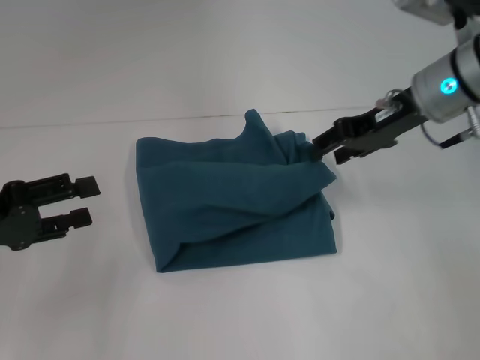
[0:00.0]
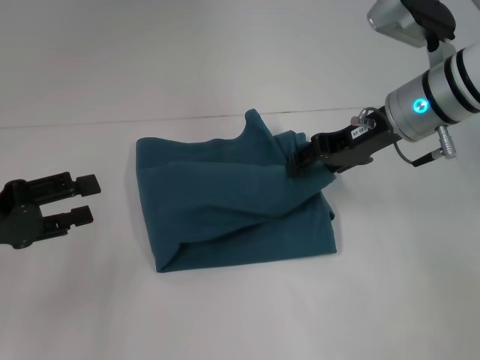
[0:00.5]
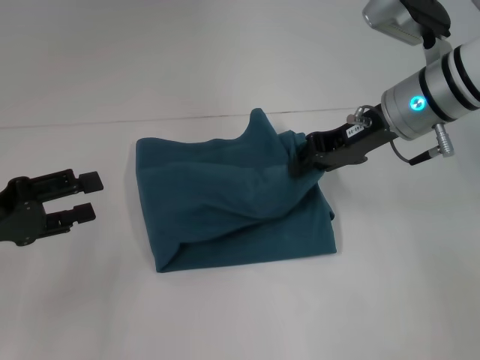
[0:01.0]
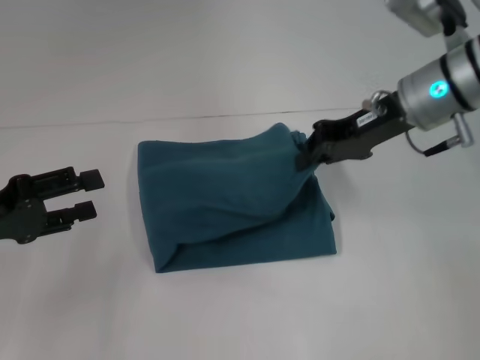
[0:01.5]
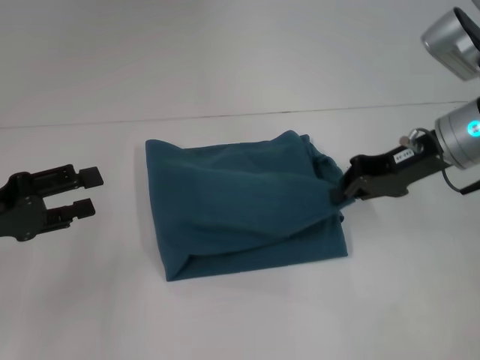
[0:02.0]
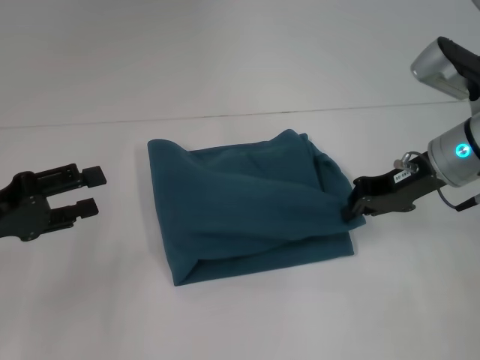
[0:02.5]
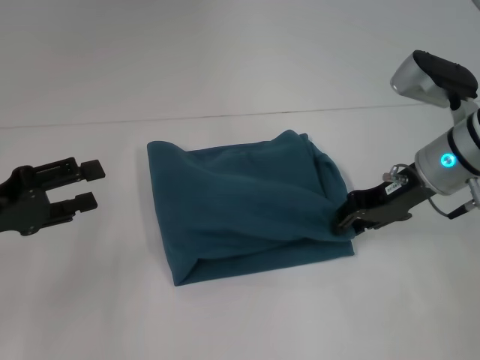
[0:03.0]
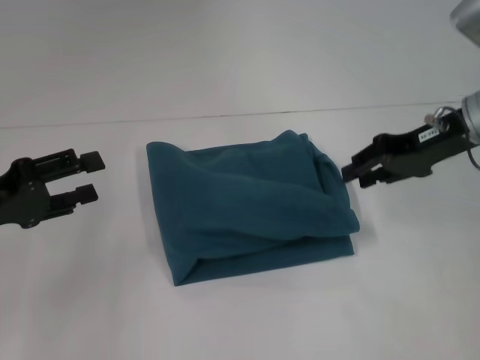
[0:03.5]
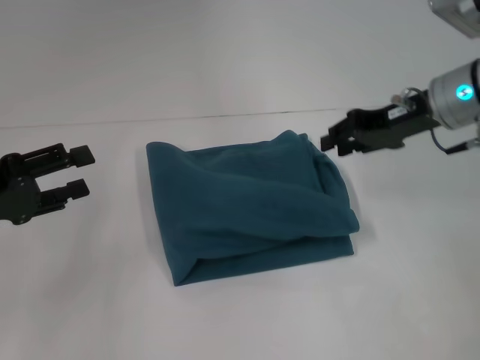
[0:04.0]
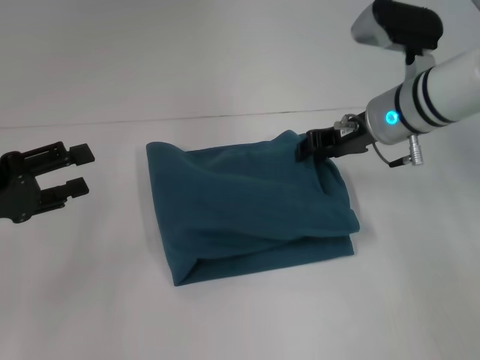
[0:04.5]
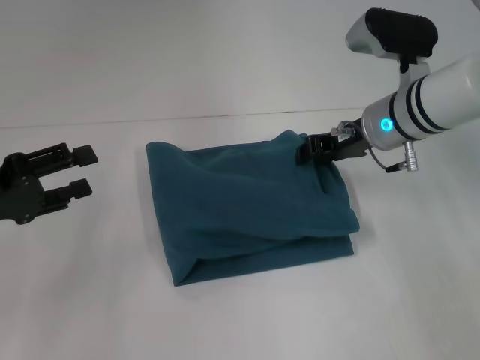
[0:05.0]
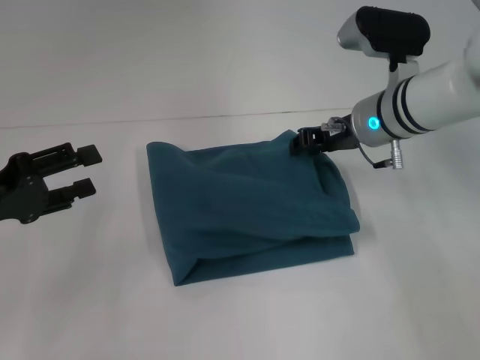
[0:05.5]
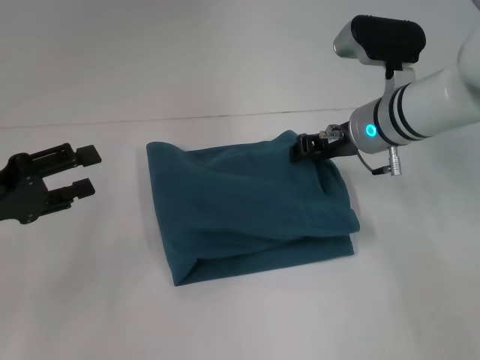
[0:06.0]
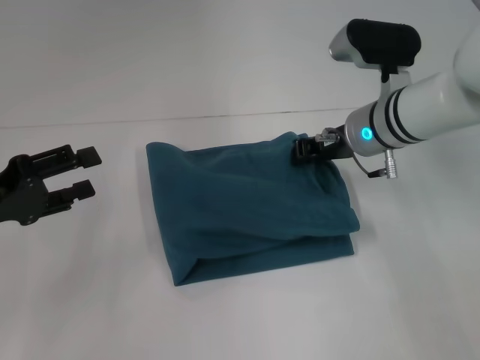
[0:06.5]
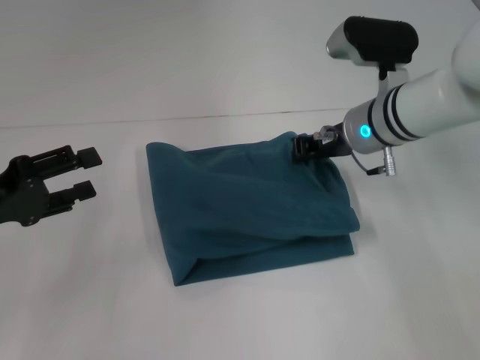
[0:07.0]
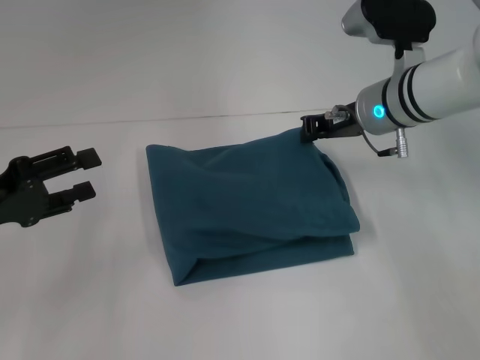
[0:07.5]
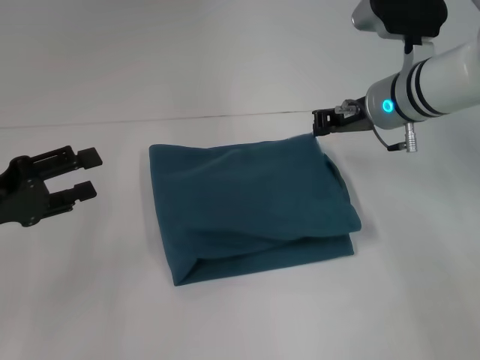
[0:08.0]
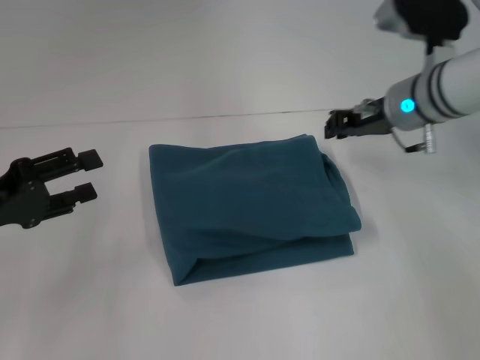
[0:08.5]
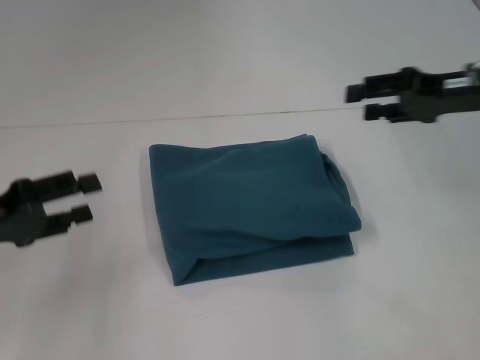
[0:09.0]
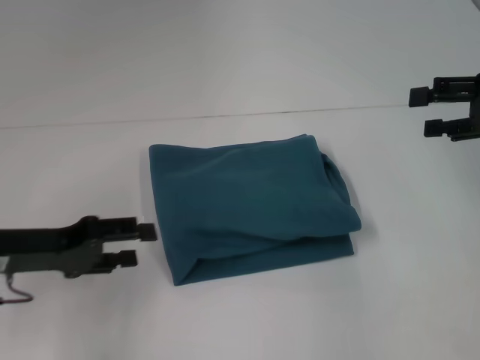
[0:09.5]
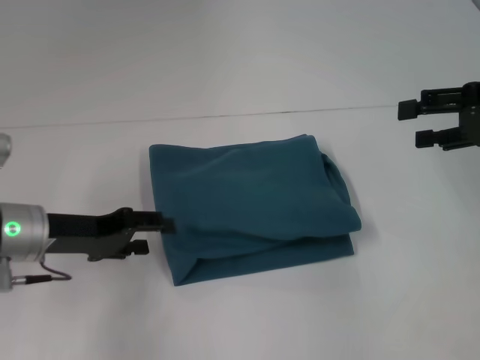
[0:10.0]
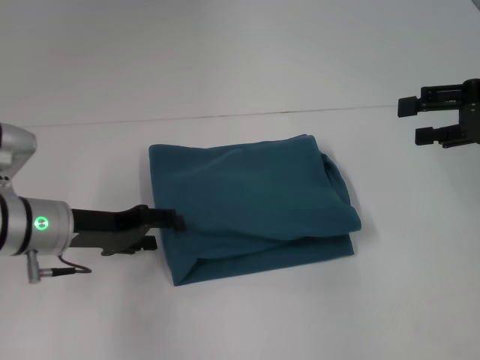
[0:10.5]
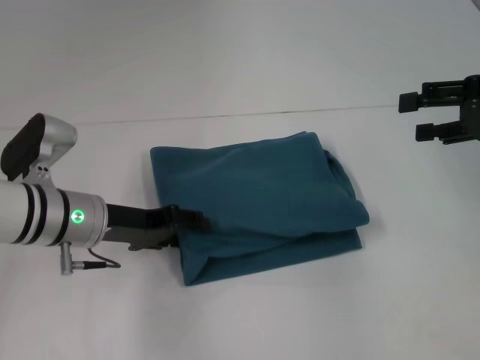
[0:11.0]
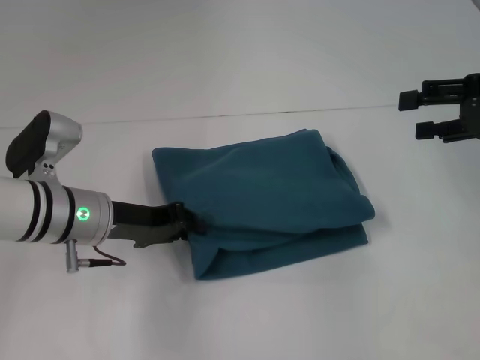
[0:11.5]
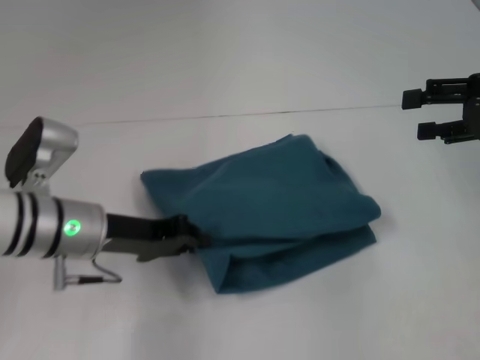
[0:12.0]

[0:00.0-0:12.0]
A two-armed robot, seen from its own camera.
0.0 to 2.0 s: The right gripper shifts by about 5 cm, and closes up.
2.0 to 4.0 s: The right gripper opens up.
4.0 to 6.0 s: The right gripper heads to the left and downward, covering approximately 10 cm.
6.0 to 8.0 s: The grippers move only a little.
8.0 to 10.0 s: The left gripper shifts about 5 cm to the right. Meanwhile the right gripper shifts approximately 20 cm to the right and backward, and opens.
10.0 to 12.0 s: The left gripper is displaced to the right by some 5 cm, and closes its fingers.

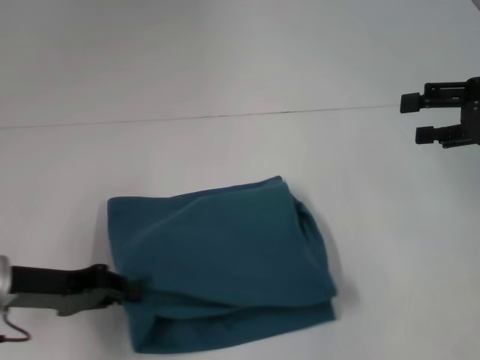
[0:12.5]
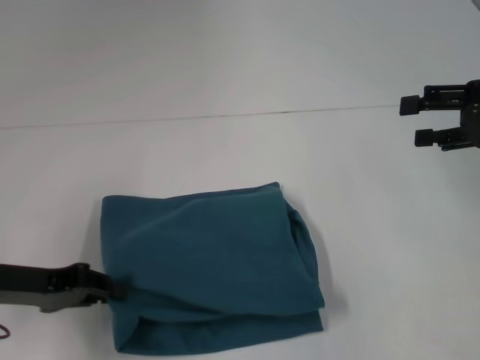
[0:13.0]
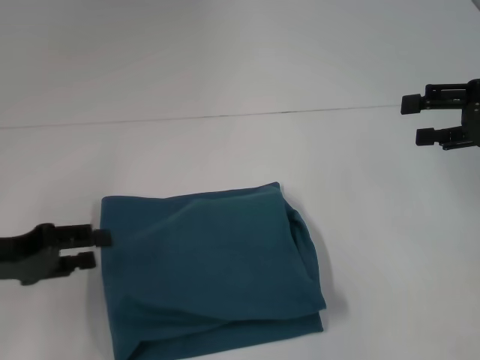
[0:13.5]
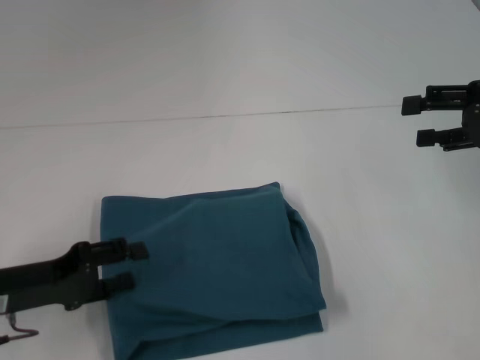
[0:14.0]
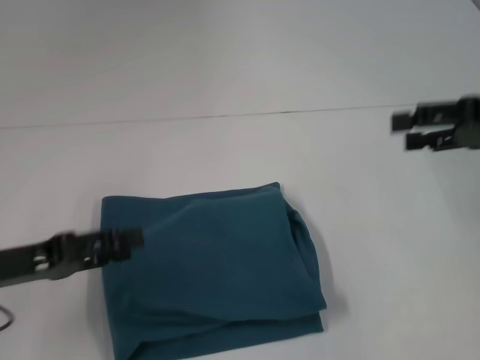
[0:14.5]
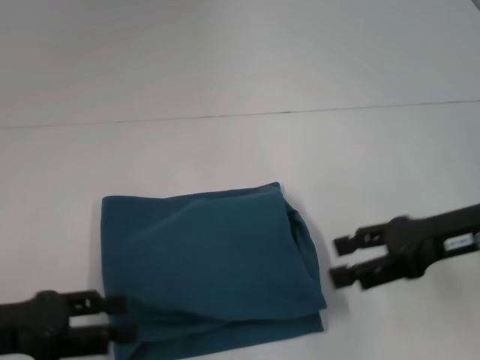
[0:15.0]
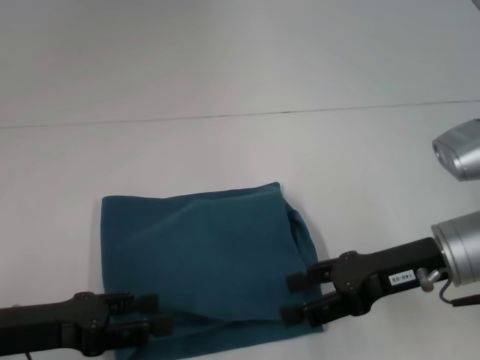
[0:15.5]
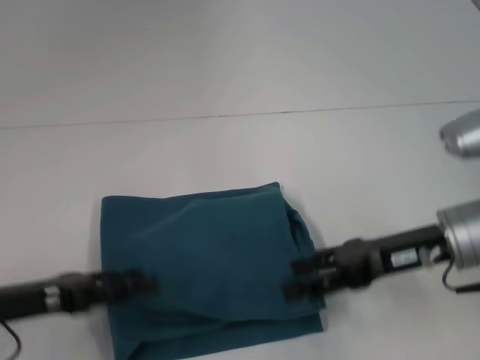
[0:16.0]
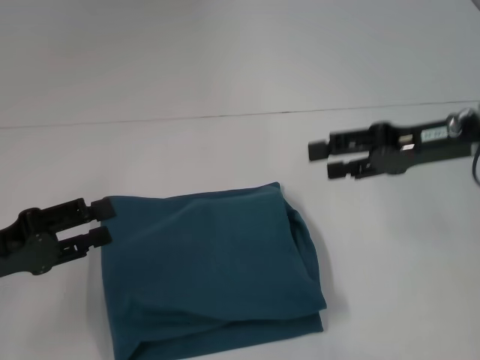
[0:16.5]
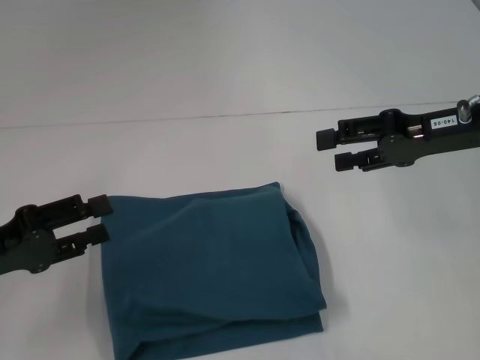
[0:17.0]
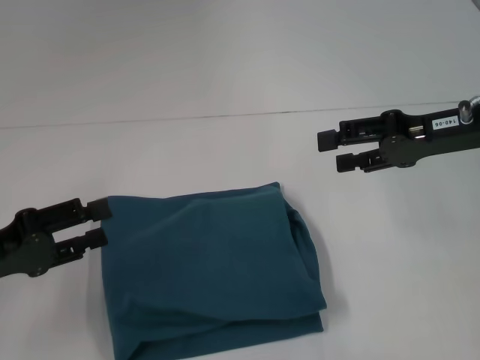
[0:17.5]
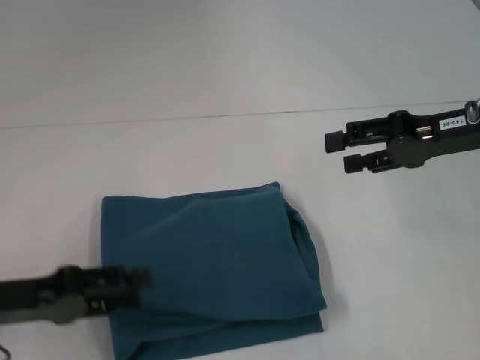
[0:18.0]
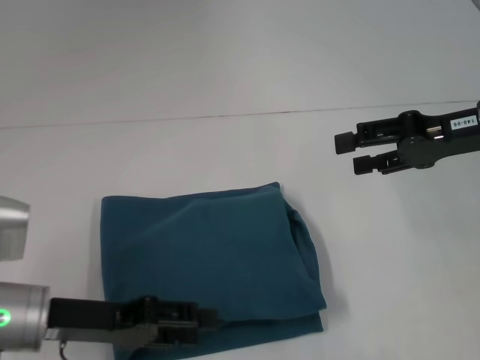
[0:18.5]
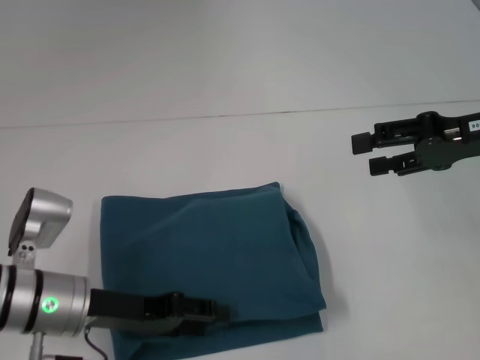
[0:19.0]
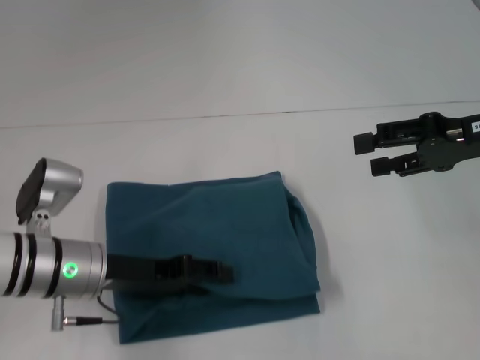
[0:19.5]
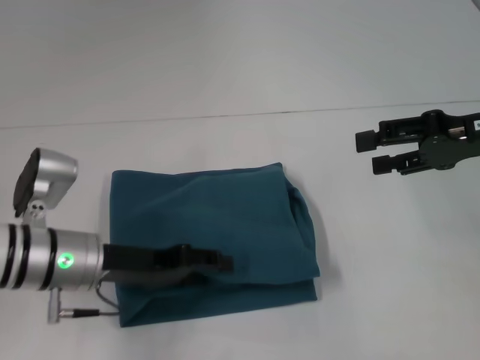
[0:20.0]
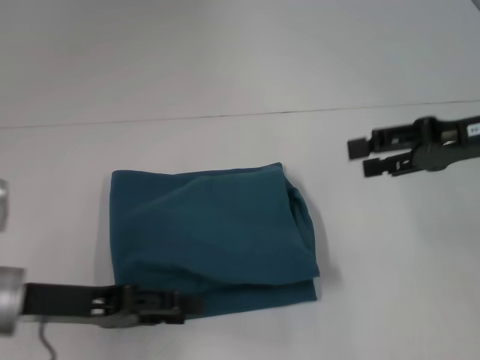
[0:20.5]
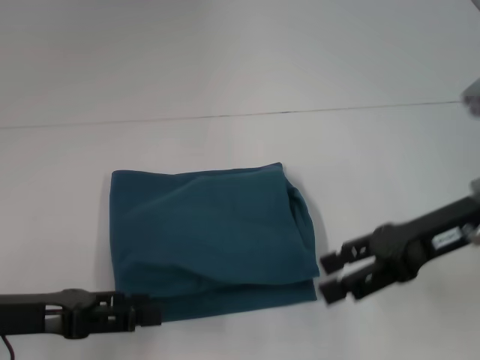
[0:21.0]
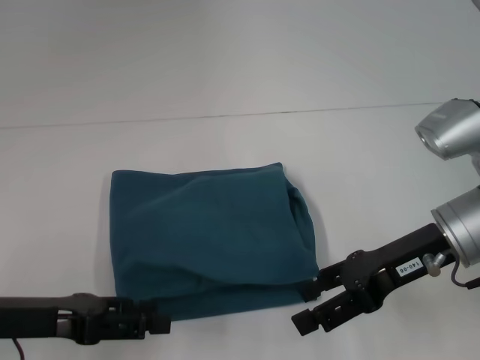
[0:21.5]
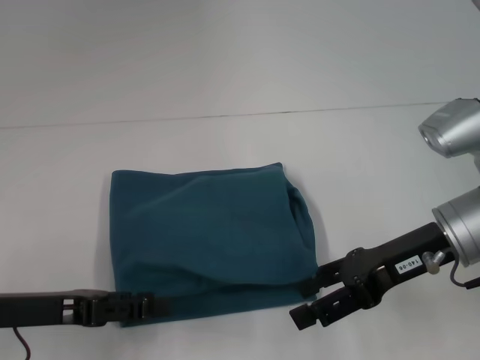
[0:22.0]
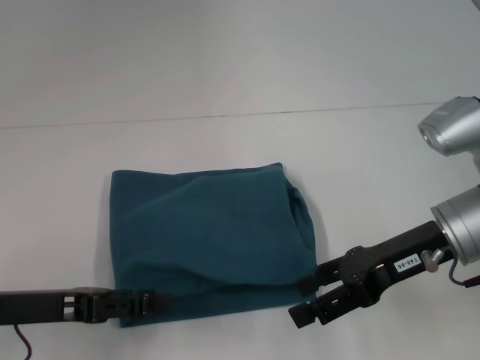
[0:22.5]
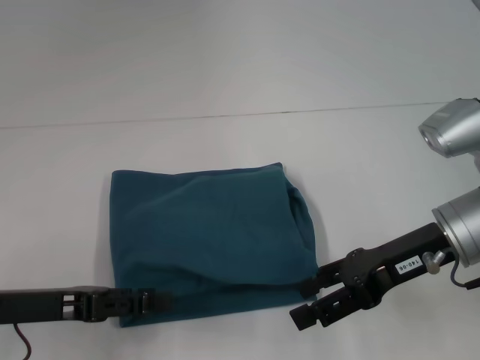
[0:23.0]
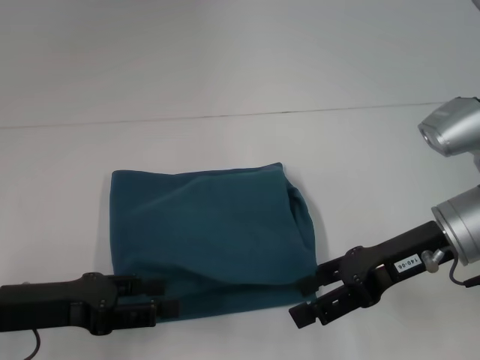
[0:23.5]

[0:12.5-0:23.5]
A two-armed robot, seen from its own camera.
12.5 to 14.5 s: The left gripper opens.
14.5 to 16.0 s: The right gripper is displaced to the left and downward by some 15 cm.
16.0 to 18.0 s: The right gripper travels upward, forward and to the right by roughly 10 cm.
18.0 to 20.0 s: The left gripper travels to the right and forward by approximately 10 cm.
20.0 to 21.5 s: The right gripper heads to the left and downward, covering some 10 cm; the left gripper shifts roughly 10 cm to the left and backward.
21.5 to 23.5 s: The grippers stay close to where they were, moving slightly.

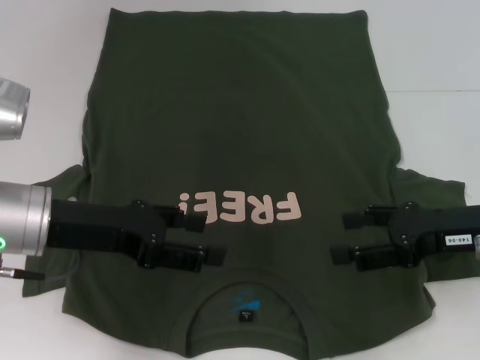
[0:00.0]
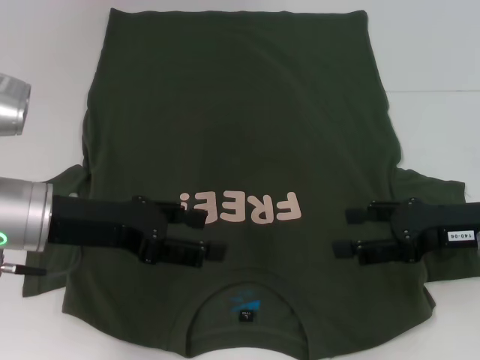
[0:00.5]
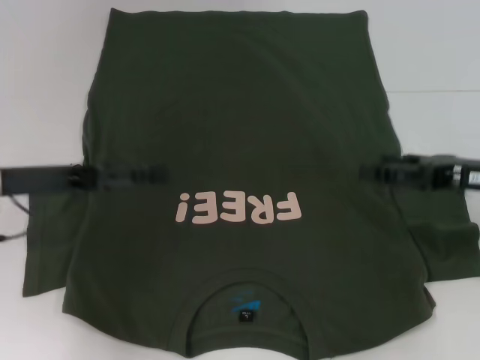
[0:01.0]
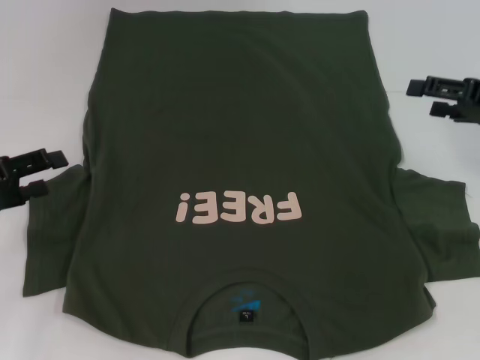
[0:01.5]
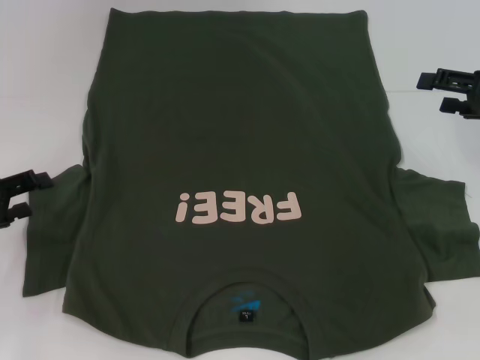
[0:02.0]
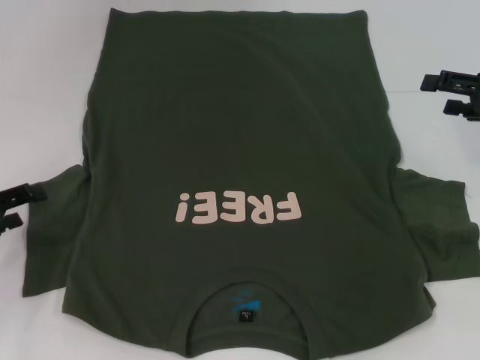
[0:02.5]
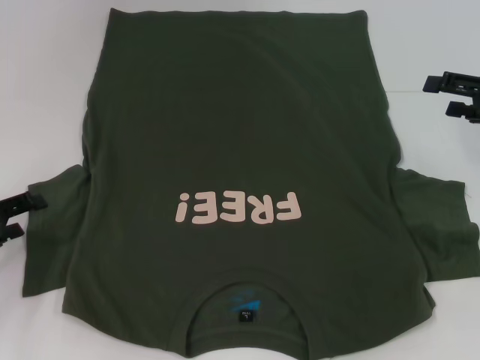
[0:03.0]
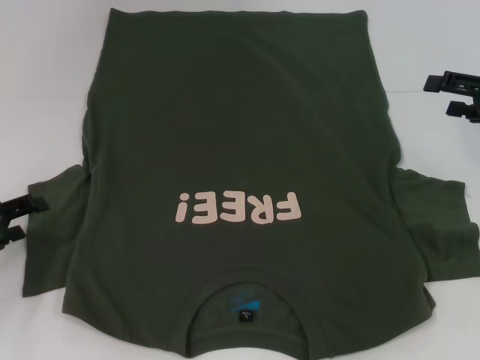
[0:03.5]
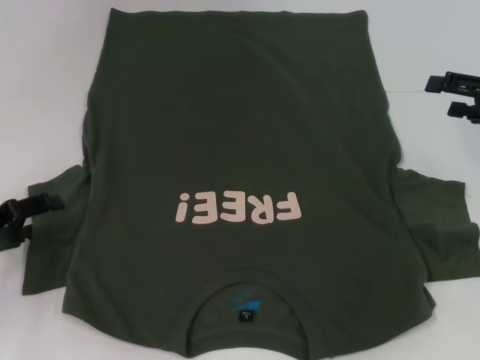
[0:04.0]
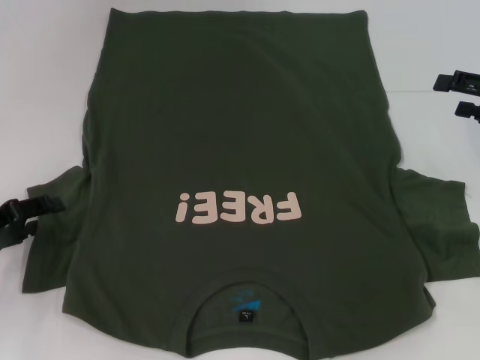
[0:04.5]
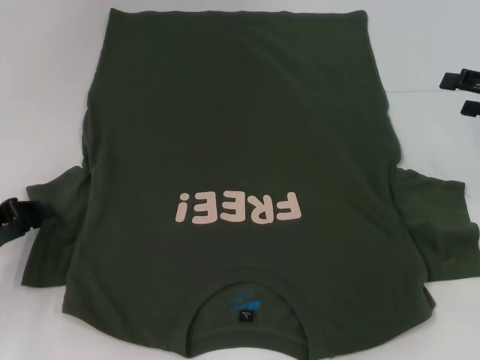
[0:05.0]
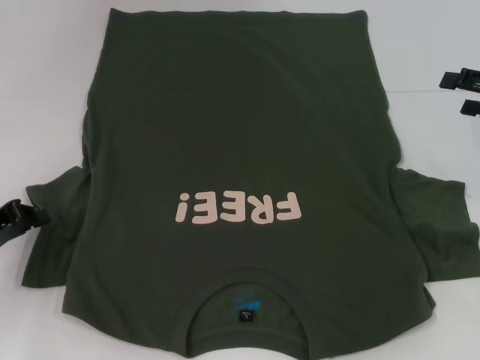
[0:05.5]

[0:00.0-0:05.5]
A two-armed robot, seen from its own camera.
0.0 to 2.0 s: The left gripper goes about 15 cm to the left, while the right gripper moves forward and to the right, about 10 cm.
2.0 to 3.5 s: The grippers make only small movements.
3.5 to 5.5 s: The left gripper closes.
